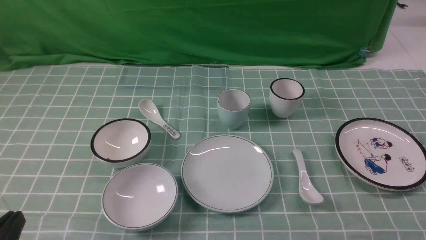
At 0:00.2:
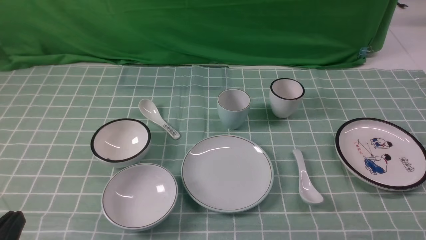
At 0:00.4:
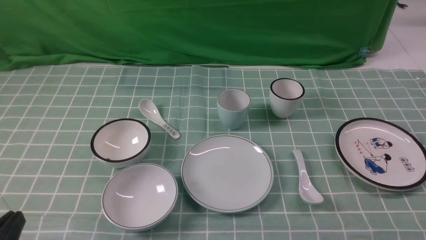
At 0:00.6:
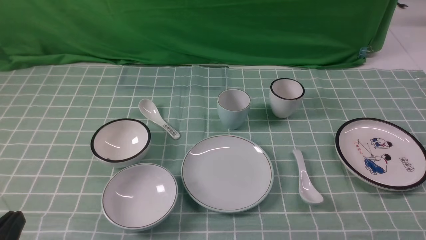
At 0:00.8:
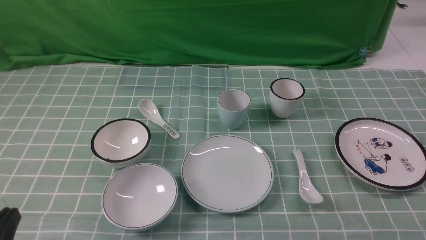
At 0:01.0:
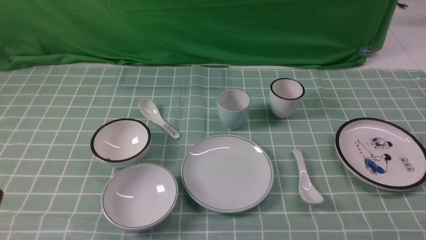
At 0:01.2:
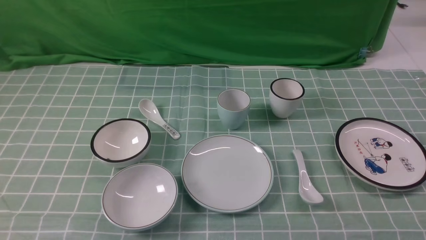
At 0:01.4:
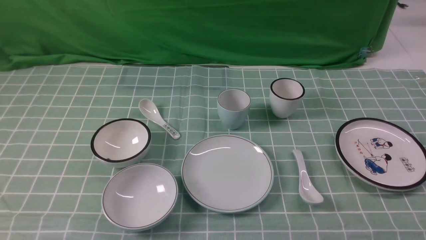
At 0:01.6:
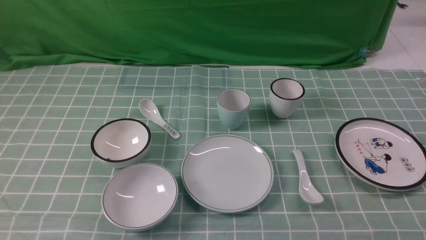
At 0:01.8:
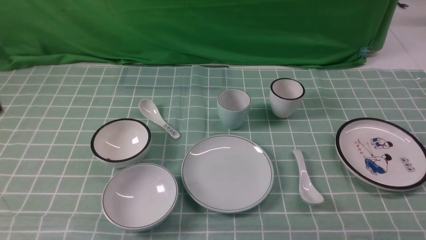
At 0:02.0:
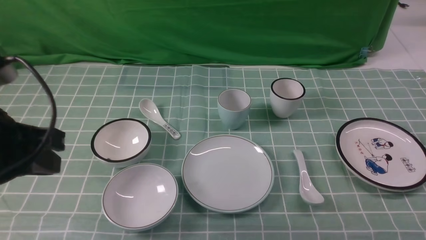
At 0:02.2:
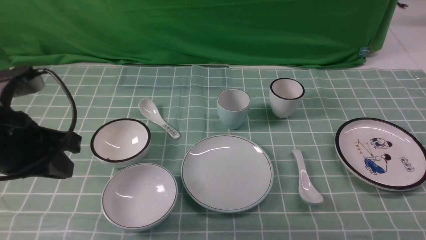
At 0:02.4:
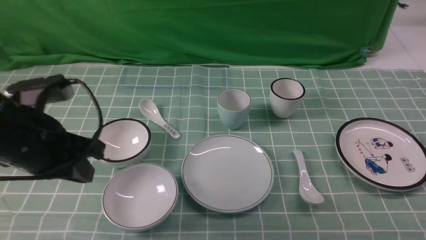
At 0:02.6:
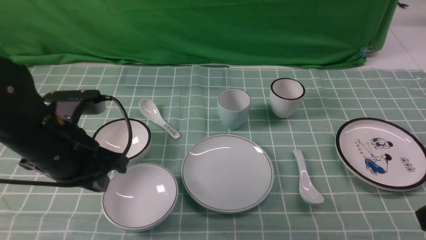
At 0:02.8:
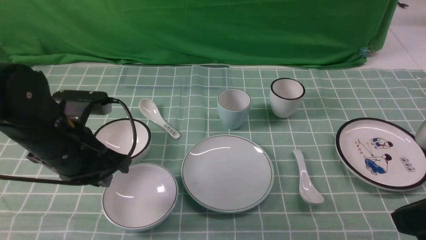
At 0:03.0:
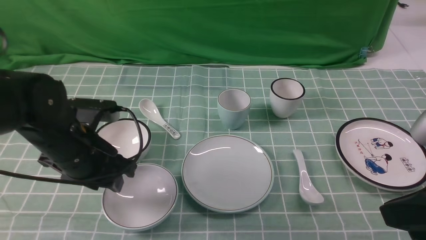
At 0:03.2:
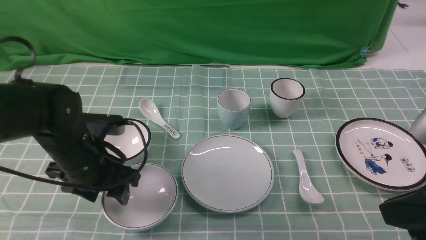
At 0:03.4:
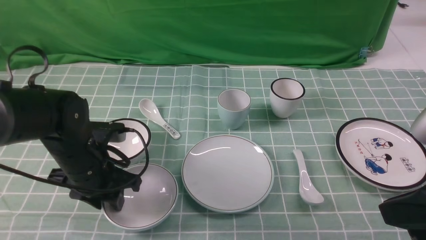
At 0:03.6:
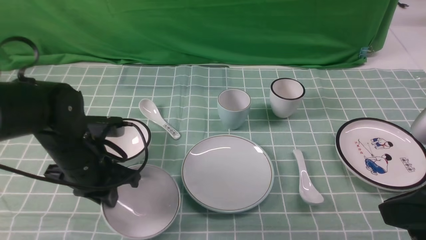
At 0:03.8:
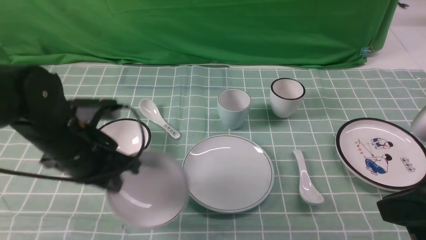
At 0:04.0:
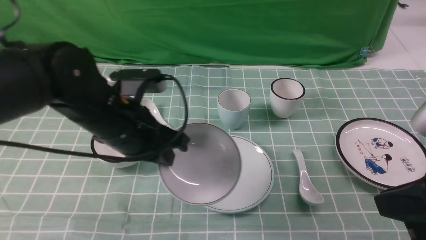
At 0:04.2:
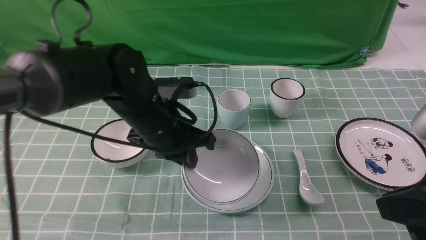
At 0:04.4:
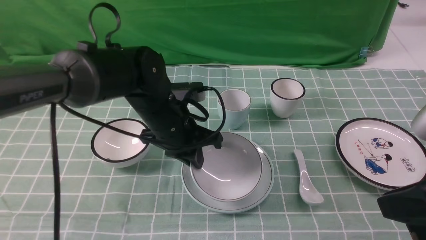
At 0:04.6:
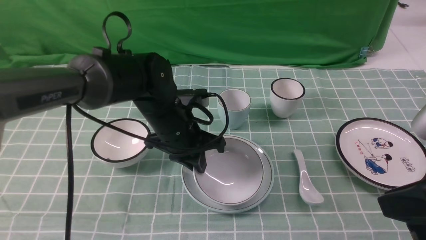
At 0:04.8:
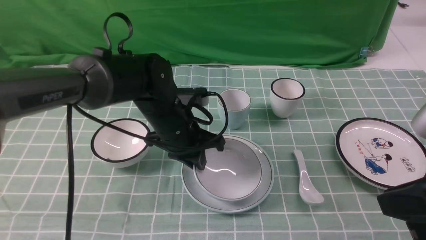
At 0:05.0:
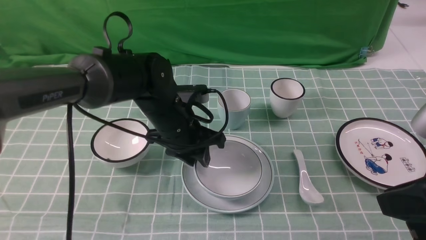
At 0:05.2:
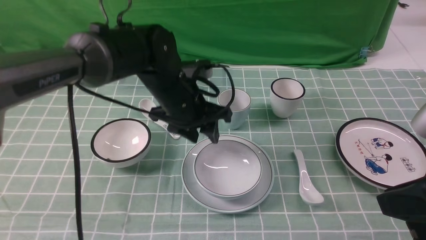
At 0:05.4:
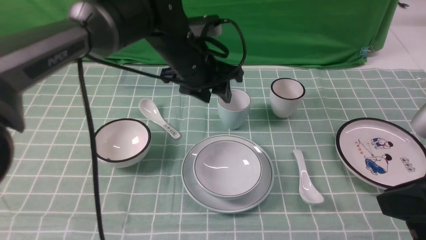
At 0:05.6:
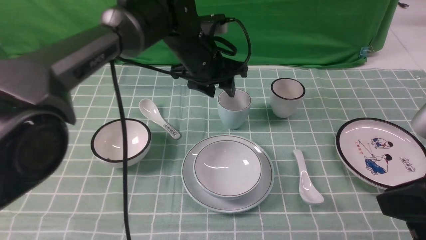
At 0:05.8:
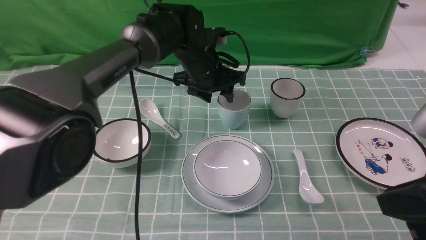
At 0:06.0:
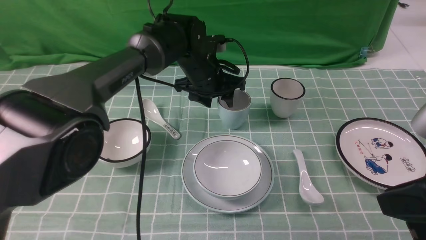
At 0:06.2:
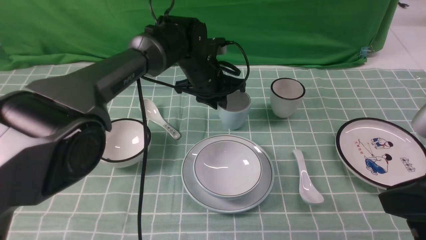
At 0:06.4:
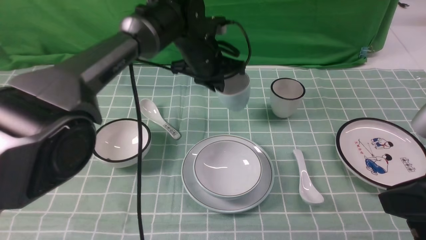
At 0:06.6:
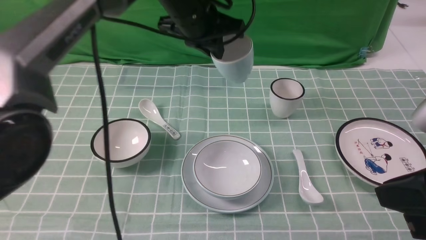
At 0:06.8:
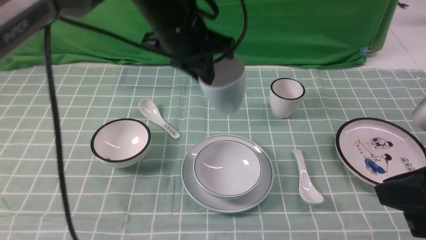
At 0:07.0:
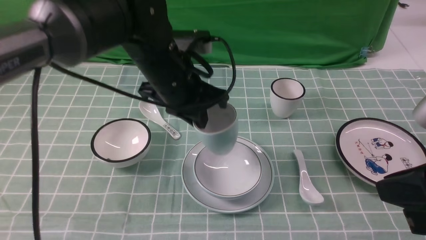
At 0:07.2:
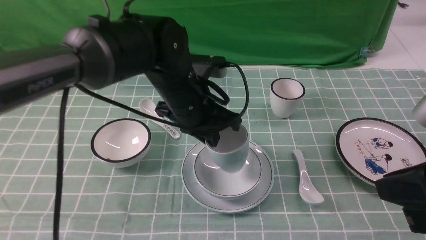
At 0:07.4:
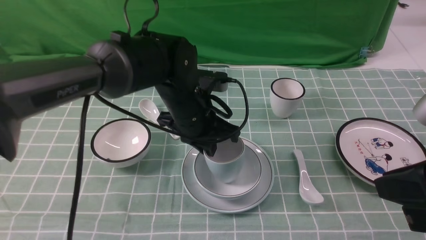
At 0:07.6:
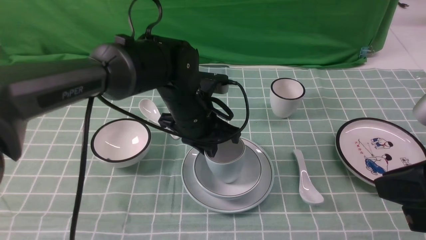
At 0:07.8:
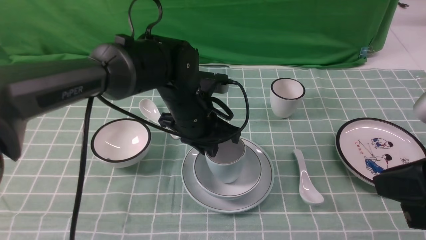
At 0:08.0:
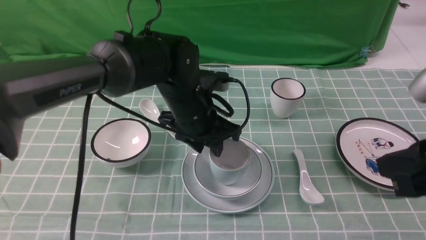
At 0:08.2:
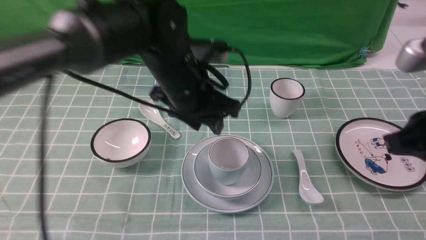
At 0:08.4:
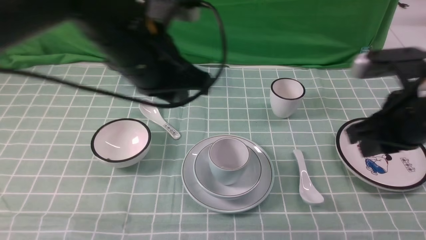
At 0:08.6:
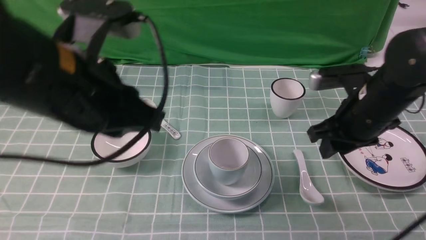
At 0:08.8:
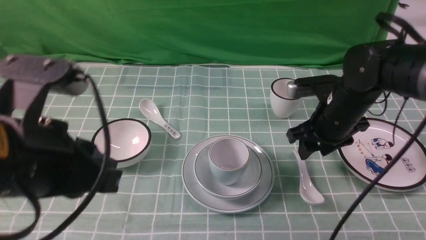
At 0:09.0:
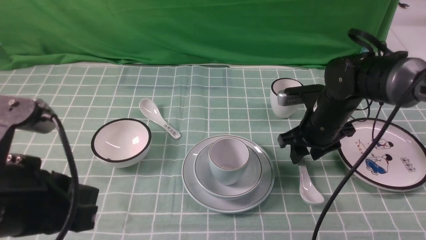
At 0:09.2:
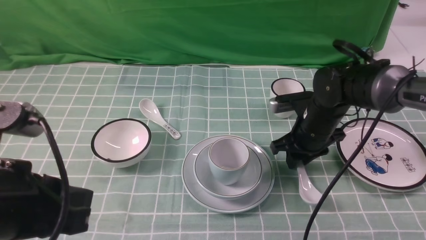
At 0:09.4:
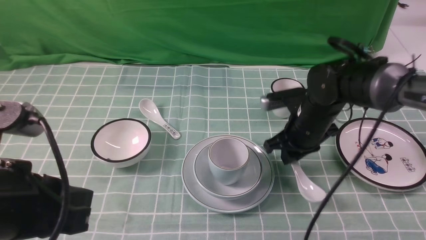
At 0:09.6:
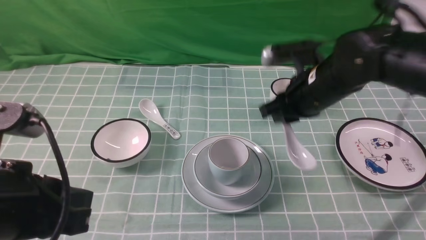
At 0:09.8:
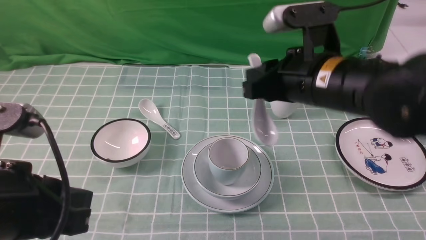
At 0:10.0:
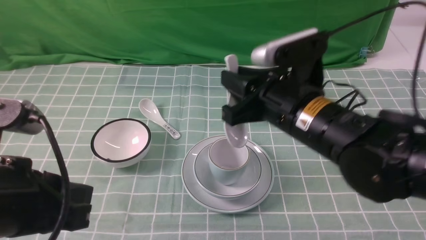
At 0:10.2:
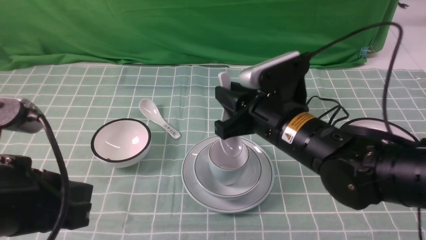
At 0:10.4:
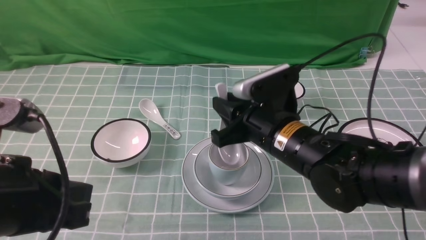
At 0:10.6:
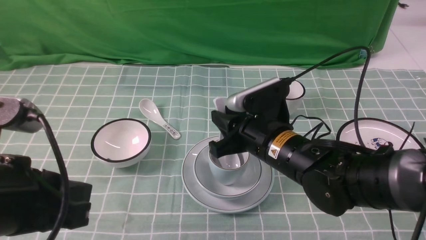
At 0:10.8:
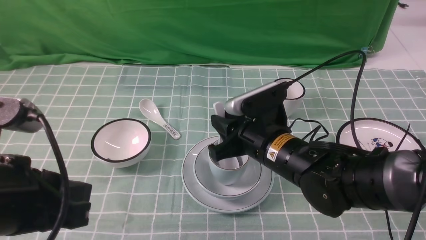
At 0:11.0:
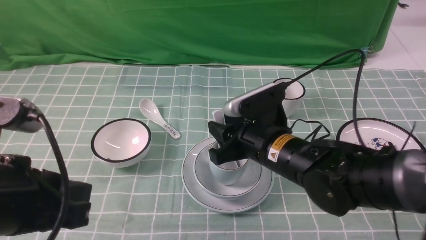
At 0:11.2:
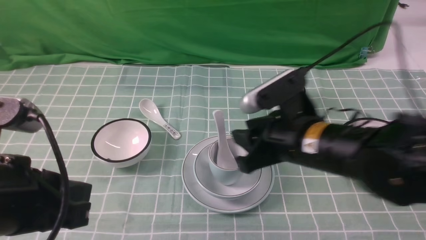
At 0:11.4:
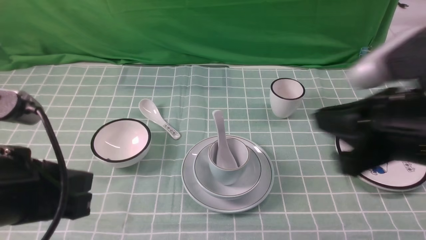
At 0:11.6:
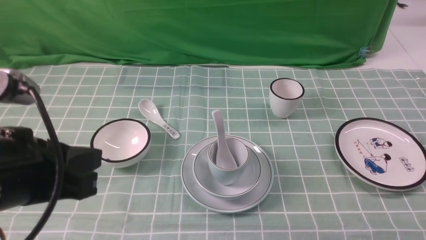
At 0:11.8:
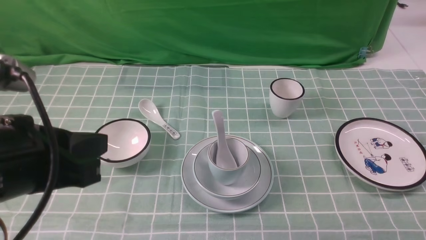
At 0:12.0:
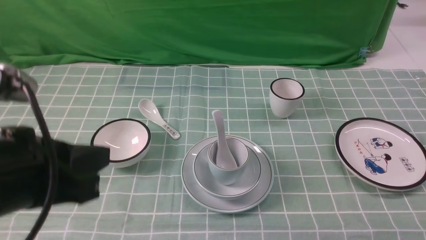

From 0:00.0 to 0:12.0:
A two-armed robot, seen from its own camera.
Task of the whole recording: place the bowls on the plates on the blue tablecloth, put the cups on the bowls, and place the spoons in the cups.
Step, from 0:00.0 to 0:03.4: Grasp the bowl with the left gripper.
Step, from 0:03.6 to 0:05.0: Place the bowl on the plate with the left gripper.
Step, from 0:05.2 to 0:06.2: Grasp the cup with the left gripper.
Step, from 0:06.4 to 0:07.8: Place the cup on the bowl with the left gripper.
Step, from 0:08.2 to 0:09.2: Grasp the spoon with the right gripper.
Step, from 0:09.4 to 0:11.0: Place the spoon on the cup with the right gripper.
From 0:01.6 to 0:03.0: The right gripper shifts some 20 cm upward, to the left and forward, and closes up; the left gripper moves forward and downward, approximately 25 cm, and opens up.
From 0:03.0 to 0:04.4: The left gripper heads to the right and forward, covering some 15 cm, and closes.
From 0:04.4 to 0:06.0: The left gripper shifts some 15 cm forward, and opens.
From 0:06.0 to 0:07.6: The left gripper travels backward by approximately 10 cm, and closes up.
From 0:07.6 to 0:09.0: The right gripper heads forward and downward, covering roughly 30 cm, and opens. The left gripper heads backward, to the left and upward, covering roughly 30 cm, and opens, then closes again.
From 0:09.0 to 0:10.4: The right gripper is displaced backward, to the left and upward by about 15 cm, and closes its fingers.
From 0:10.4 to 0:12.0: The right gripper heads backward and to the right, covering about 35 cm, and opens, then closes again.

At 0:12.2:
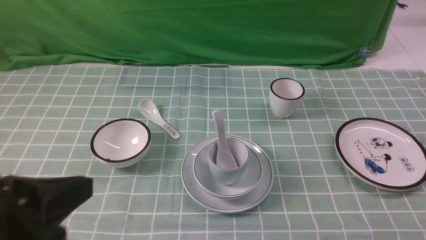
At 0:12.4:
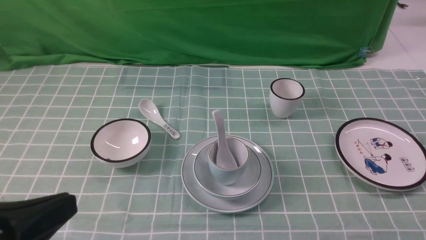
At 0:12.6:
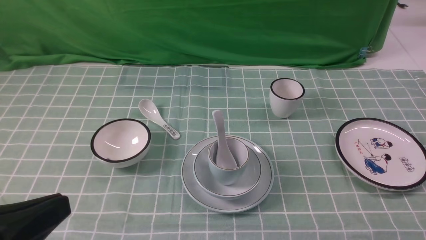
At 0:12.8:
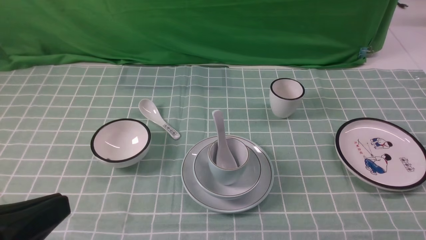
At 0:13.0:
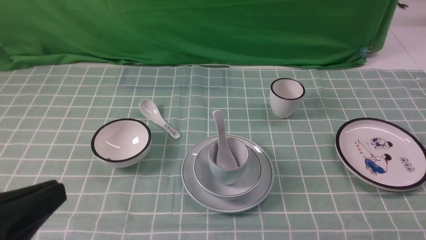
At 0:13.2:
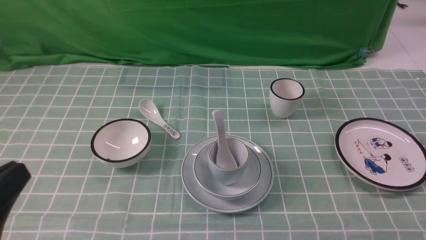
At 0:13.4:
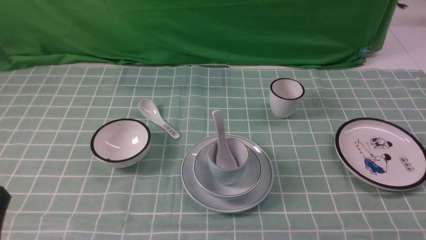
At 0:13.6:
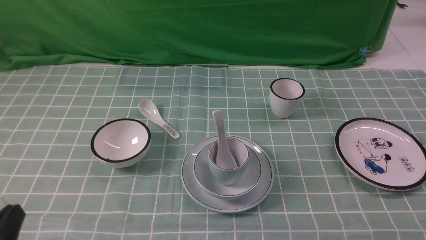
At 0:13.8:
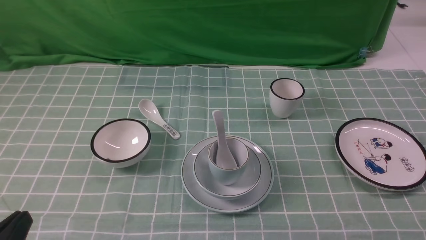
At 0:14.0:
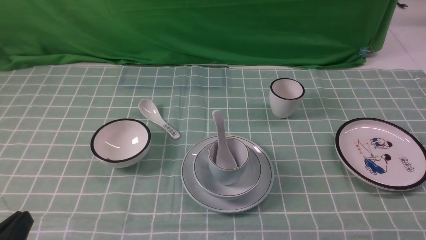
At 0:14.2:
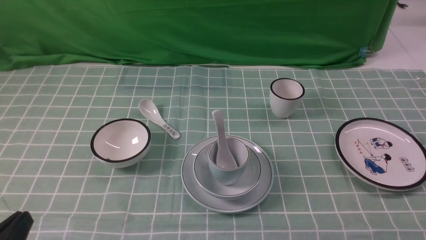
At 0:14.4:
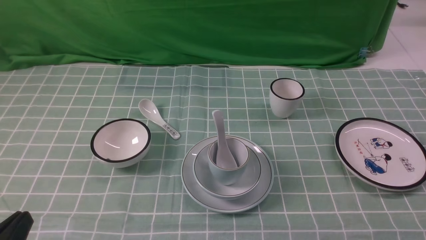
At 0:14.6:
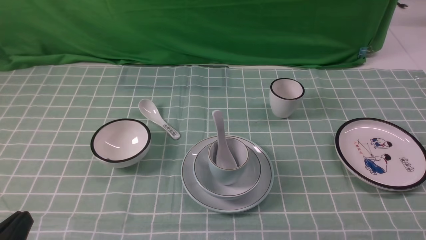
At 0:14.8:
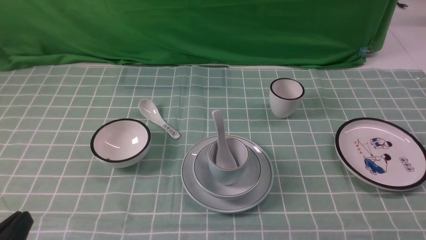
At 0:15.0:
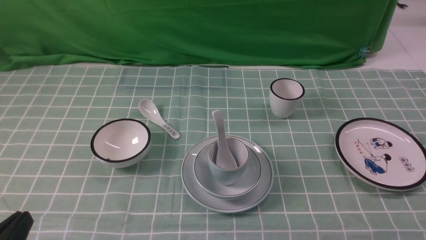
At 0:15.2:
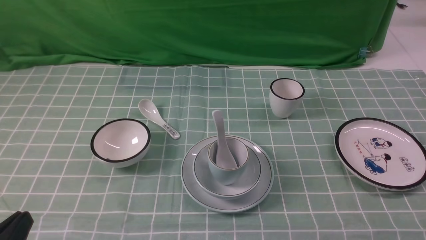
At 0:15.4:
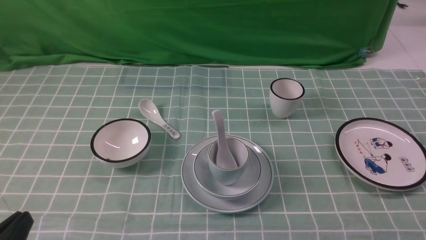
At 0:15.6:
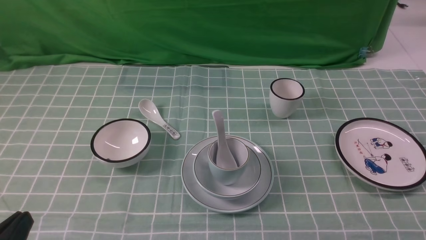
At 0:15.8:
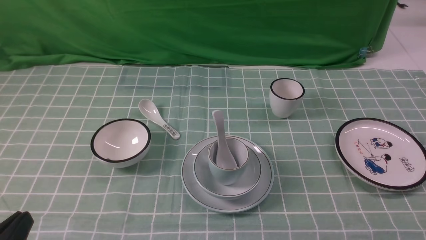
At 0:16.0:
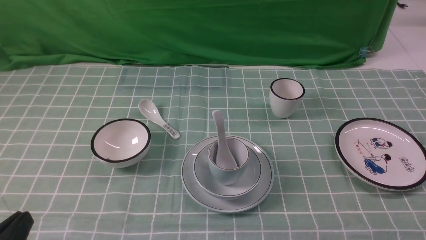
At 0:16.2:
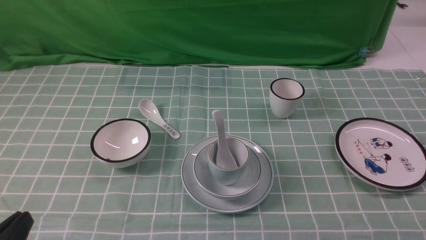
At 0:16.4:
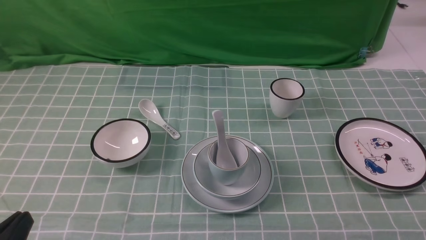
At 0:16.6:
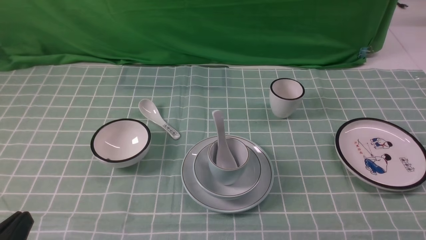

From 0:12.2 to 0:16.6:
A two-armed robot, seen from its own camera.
Task of the whole recording: place the bowls on the plates on the blue tablecloth, put the cups on the bowls, and place the spoons in the cups.
From 0:12.2 to 0:13.6: The left gripper is displaced downward by about 10 cm.
From 0:15.2 to 0:16.6: Neither gripper changes place.
